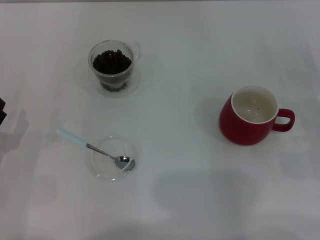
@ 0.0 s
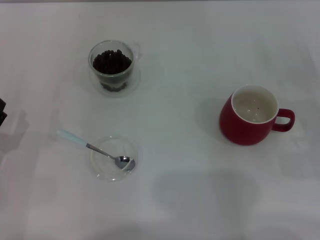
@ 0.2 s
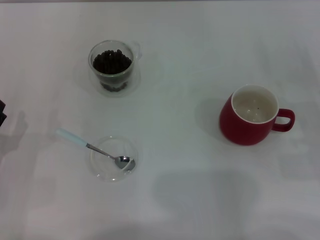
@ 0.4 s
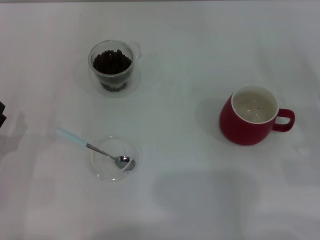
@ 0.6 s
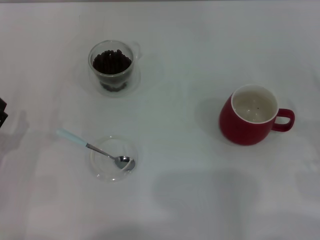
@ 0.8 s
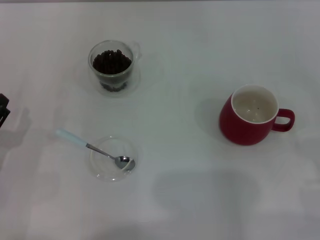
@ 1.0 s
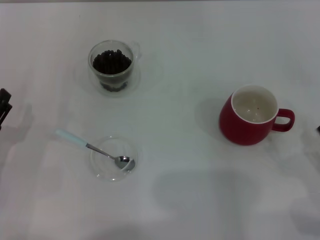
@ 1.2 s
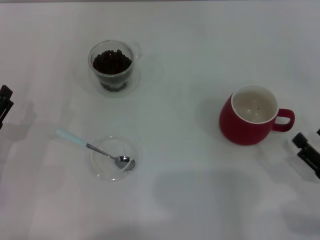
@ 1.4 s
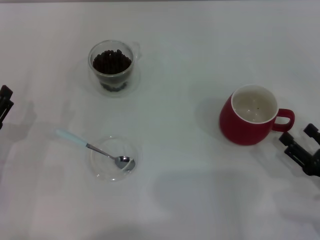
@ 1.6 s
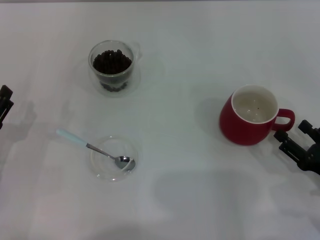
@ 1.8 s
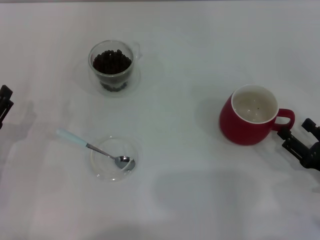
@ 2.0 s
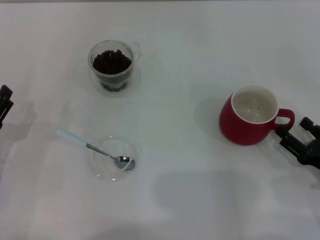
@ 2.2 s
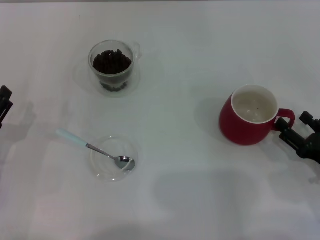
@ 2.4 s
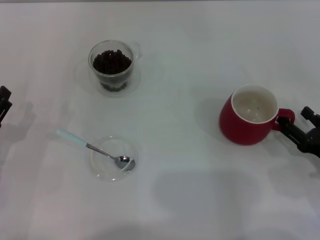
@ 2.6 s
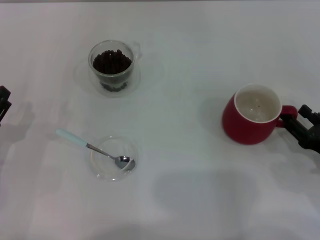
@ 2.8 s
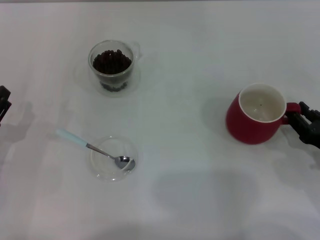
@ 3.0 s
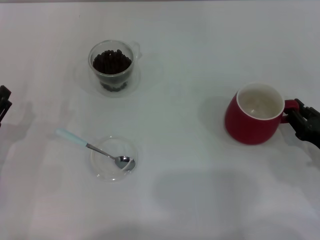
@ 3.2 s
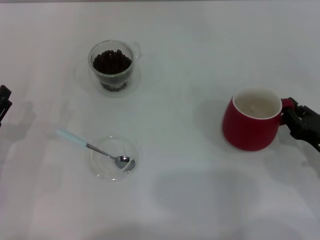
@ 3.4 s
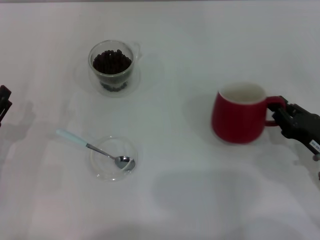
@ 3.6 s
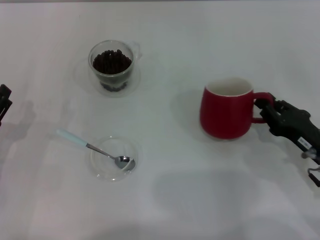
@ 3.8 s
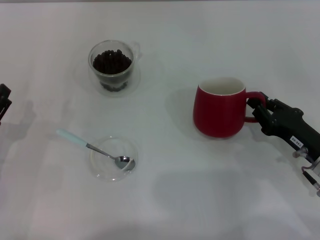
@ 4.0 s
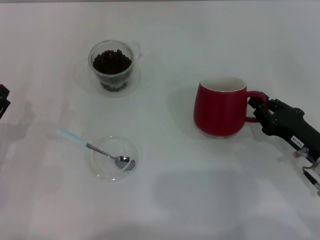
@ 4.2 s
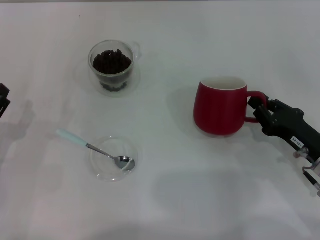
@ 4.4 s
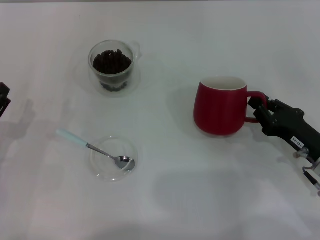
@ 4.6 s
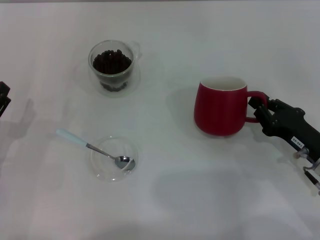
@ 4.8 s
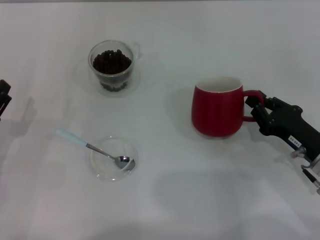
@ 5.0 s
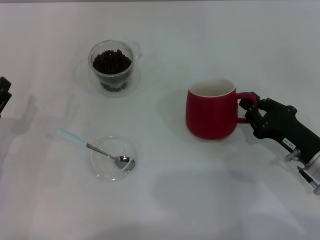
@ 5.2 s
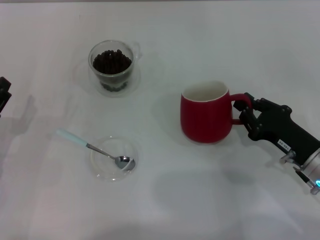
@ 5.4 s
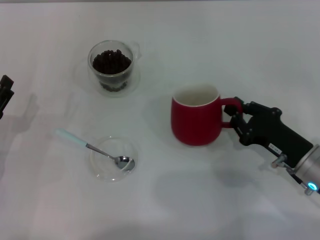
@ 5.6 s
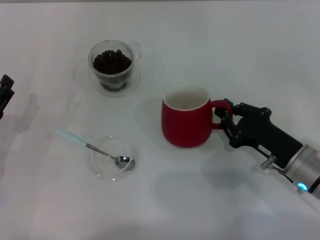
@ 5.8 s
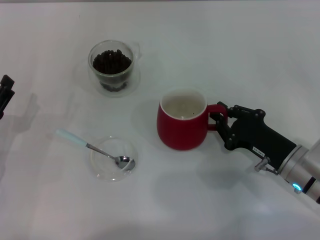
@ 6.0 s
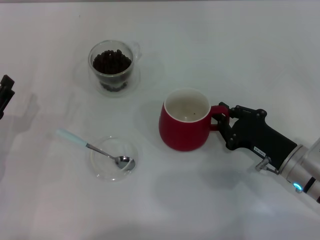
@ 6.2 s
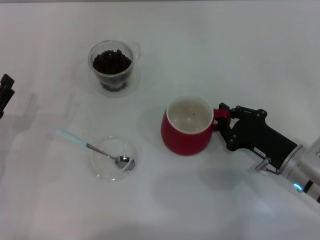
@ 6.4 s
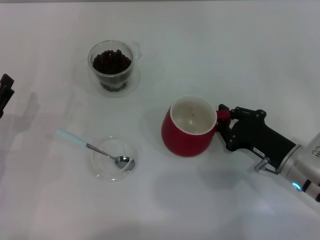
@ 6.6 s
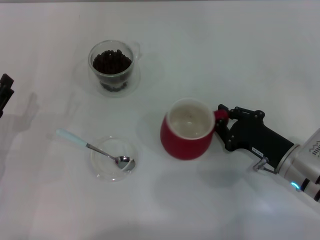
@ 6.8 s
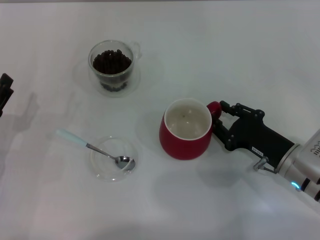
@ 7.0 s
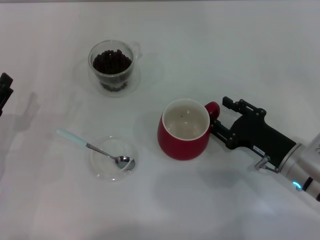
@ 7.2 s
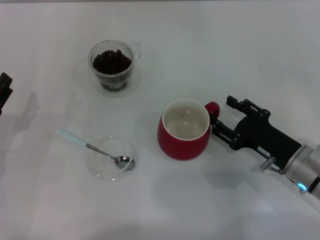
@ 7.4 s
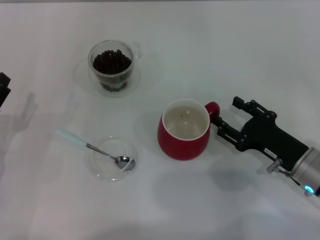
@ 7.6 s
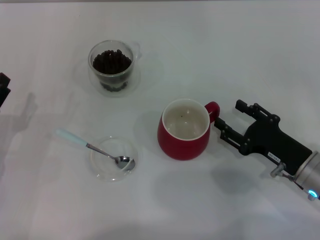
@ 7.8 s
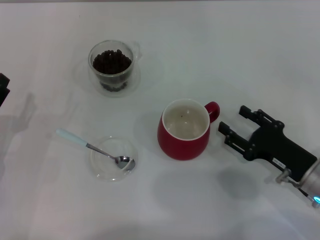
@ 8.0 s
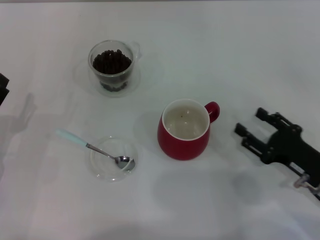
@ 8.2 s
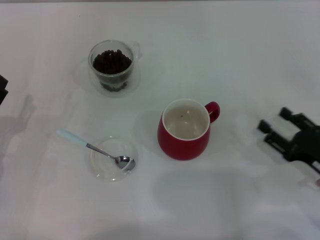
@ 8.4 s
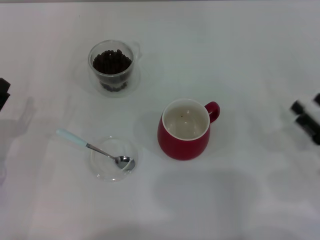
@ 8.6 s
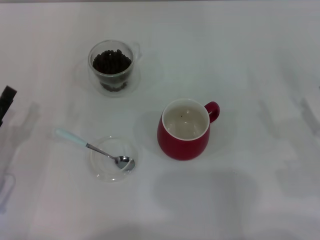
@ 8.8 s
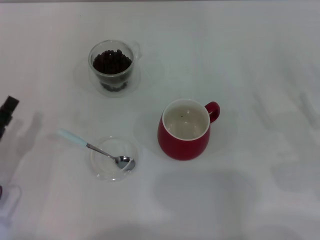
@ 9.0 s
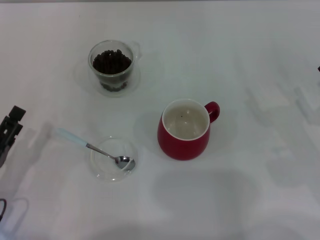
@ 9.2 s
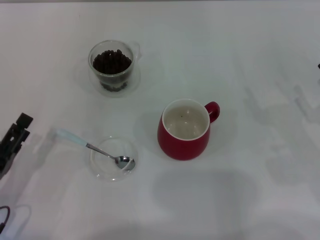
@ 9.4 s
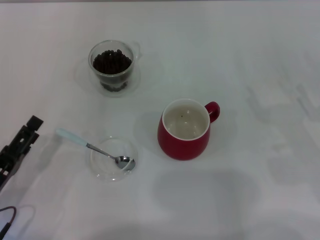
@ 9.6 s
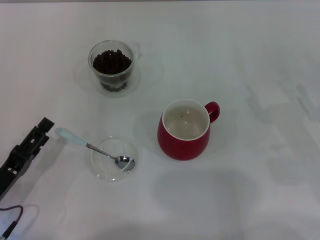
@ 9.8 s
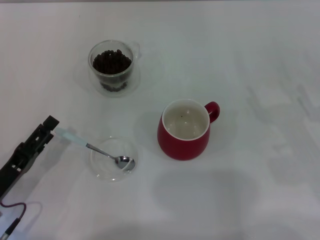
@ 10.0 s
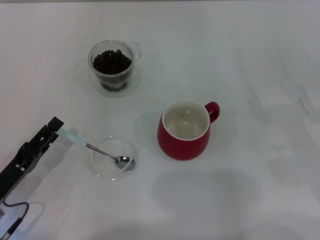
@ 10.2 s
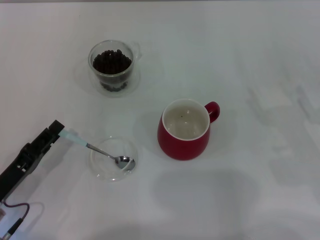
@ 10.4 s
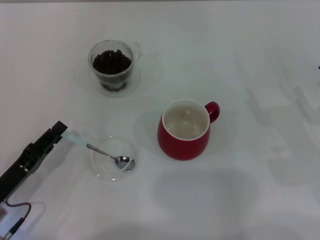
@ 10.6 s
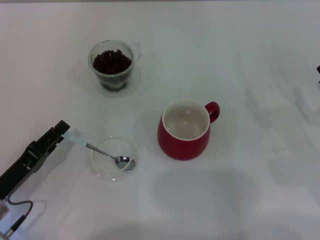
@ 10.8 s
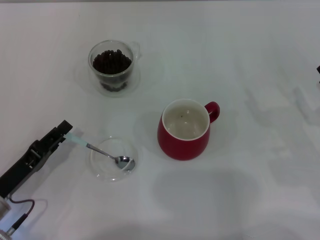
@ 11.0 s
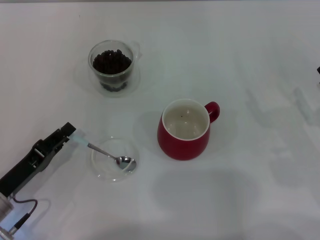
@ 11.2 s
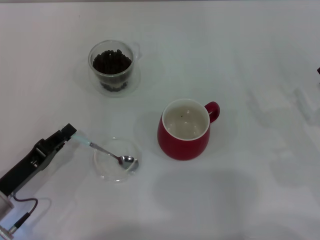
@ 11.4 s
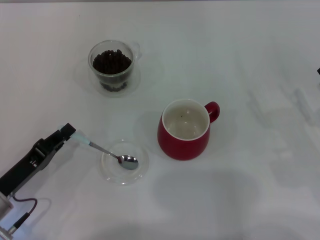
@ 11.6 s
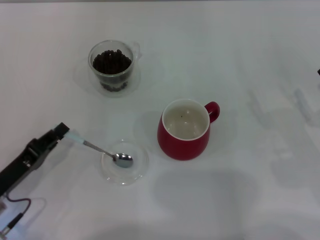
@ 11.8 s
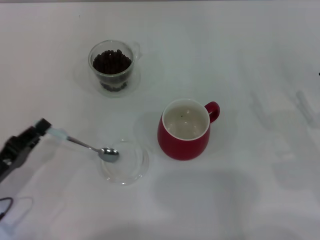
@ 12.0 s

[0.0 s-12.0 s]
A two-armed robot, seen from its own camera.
Task of the whole recording: Use a blue spoon to take out the coffee beans from the glass and pour them into the red cup.
Step, 8.2 to 12.0 s: Pick up the spoon with the right gripper.
0.0 to 1.6 s: The right gripper shifts some 5 cm backward.
1.6 to 3.0 s: The grippers make only small movements.
3.0 to 4.4 s: The right gripper shifts by approximately 5 cm, and closes its fingers.
6.0 to 7.6 s: The right gripper opens.
7.6 to 9.0 s: The right gripper goes some 10 cm to the right.
9.0 to 10.4 s: The grippers make only small movements.
10.4 to 12.0 s: The left gripper closes.

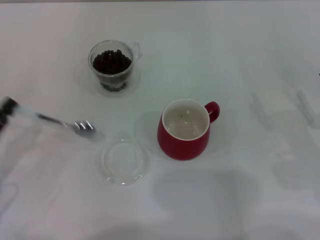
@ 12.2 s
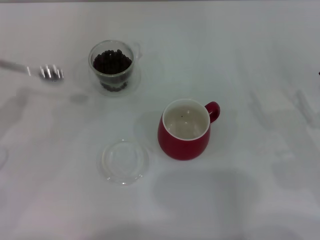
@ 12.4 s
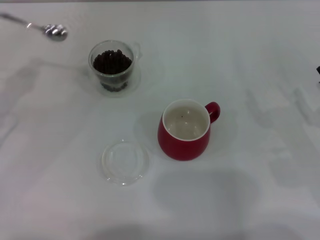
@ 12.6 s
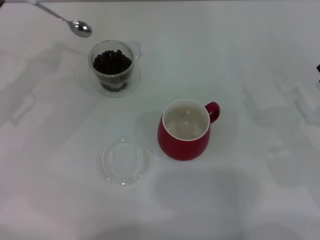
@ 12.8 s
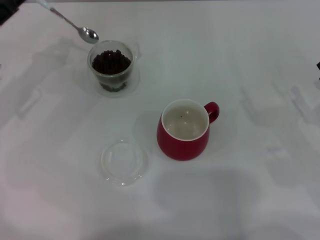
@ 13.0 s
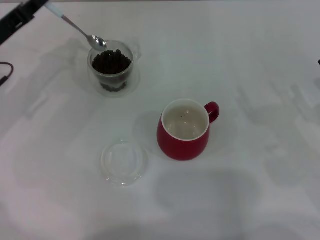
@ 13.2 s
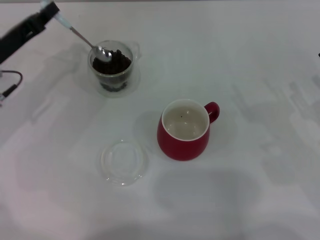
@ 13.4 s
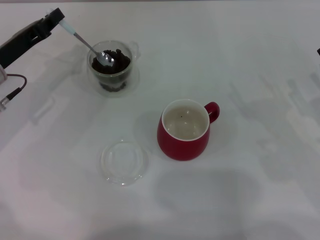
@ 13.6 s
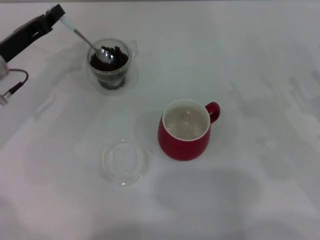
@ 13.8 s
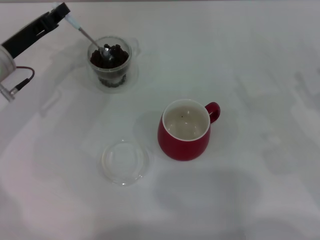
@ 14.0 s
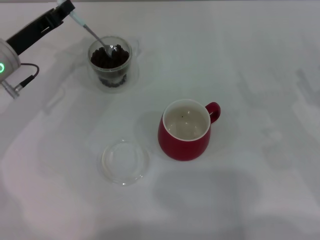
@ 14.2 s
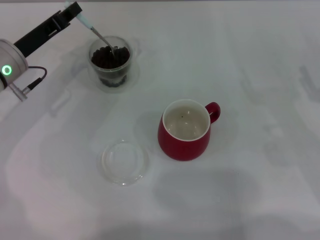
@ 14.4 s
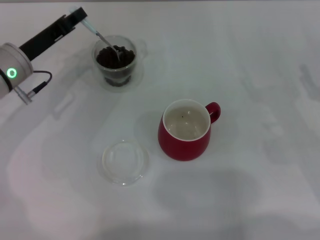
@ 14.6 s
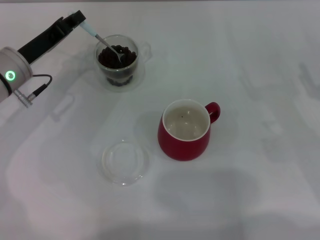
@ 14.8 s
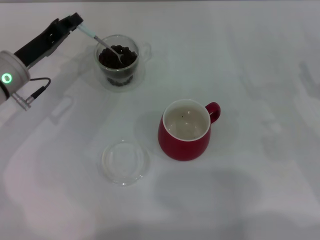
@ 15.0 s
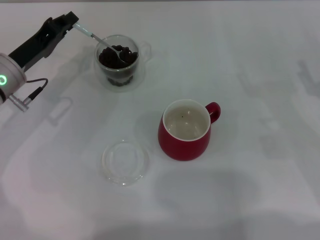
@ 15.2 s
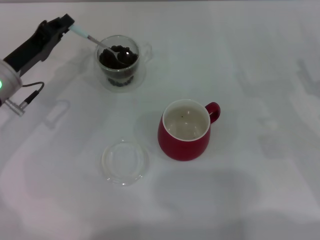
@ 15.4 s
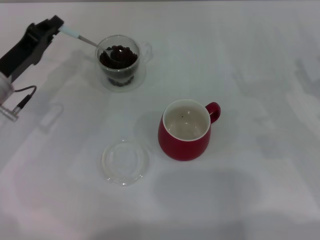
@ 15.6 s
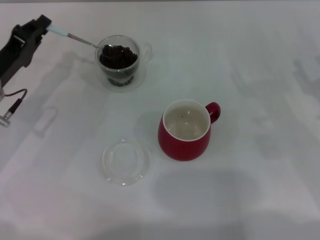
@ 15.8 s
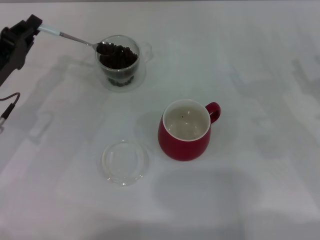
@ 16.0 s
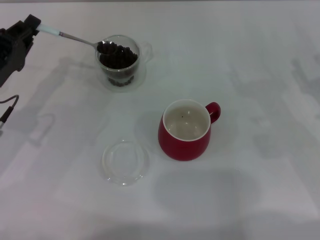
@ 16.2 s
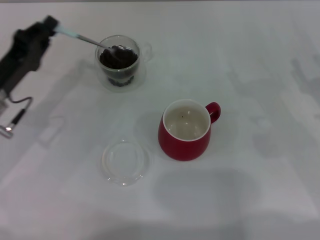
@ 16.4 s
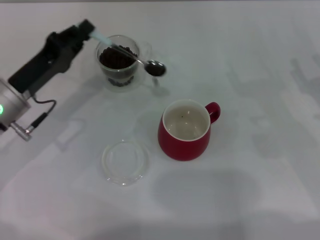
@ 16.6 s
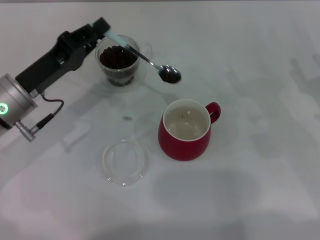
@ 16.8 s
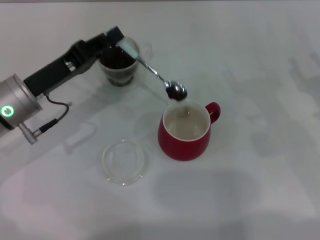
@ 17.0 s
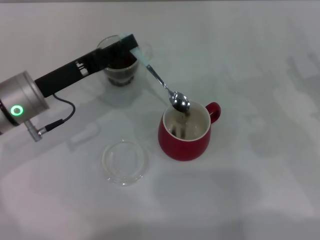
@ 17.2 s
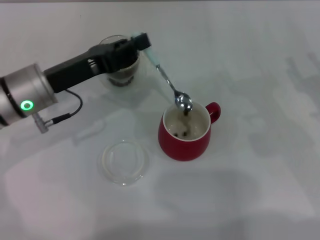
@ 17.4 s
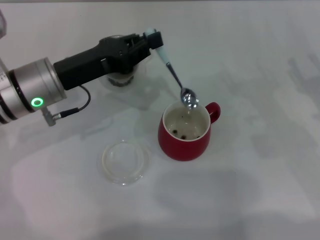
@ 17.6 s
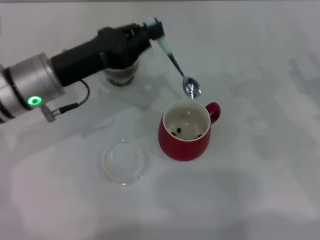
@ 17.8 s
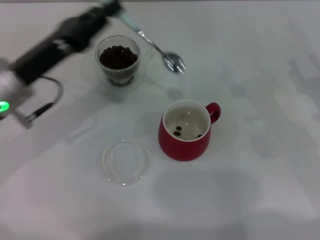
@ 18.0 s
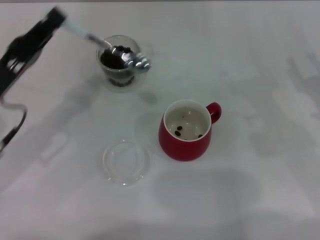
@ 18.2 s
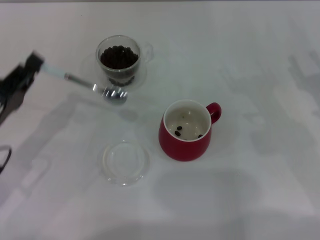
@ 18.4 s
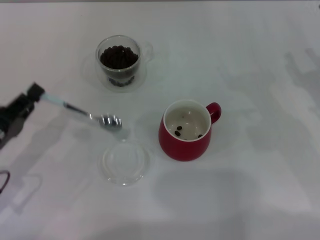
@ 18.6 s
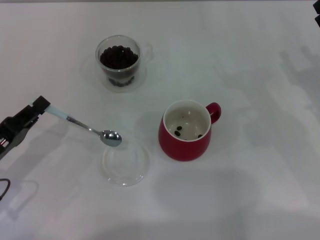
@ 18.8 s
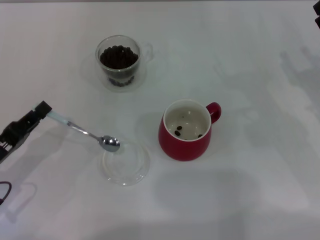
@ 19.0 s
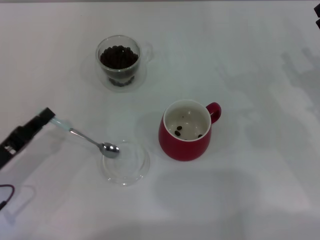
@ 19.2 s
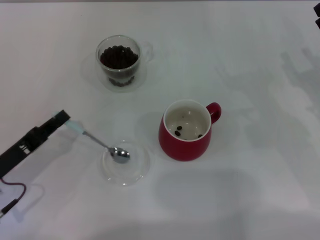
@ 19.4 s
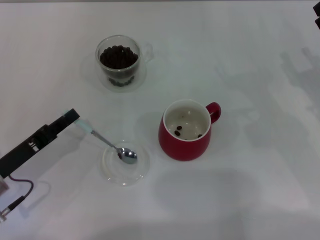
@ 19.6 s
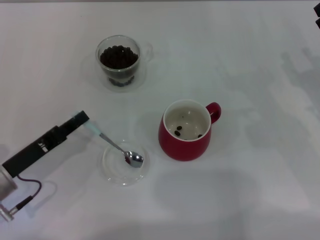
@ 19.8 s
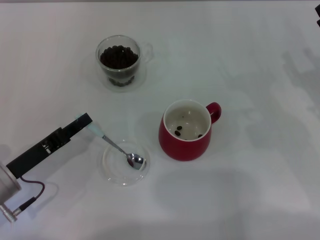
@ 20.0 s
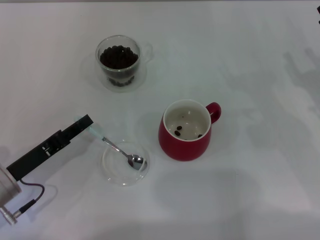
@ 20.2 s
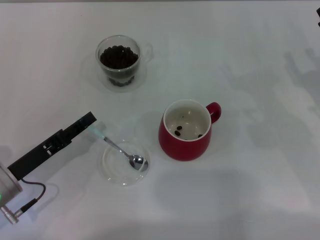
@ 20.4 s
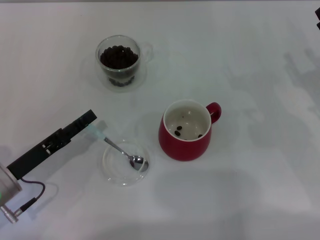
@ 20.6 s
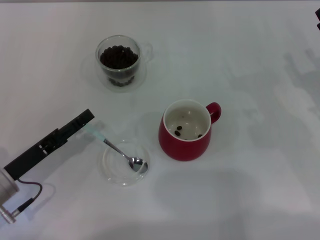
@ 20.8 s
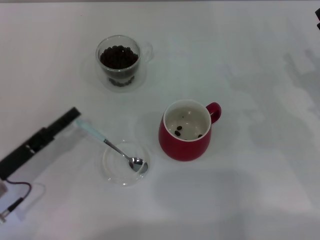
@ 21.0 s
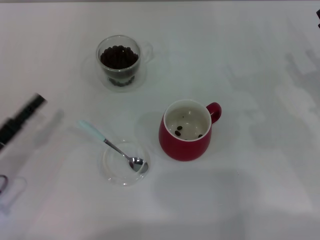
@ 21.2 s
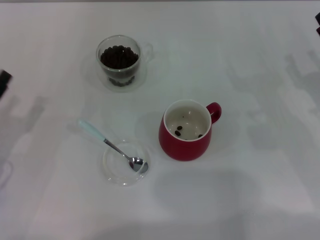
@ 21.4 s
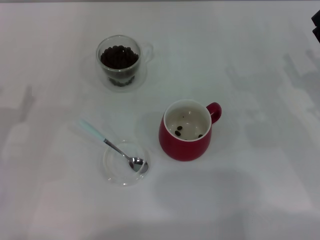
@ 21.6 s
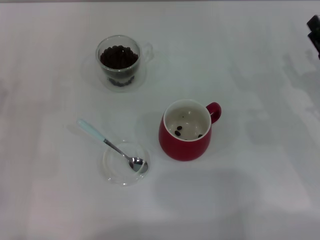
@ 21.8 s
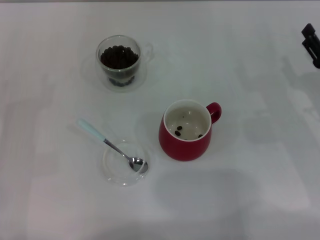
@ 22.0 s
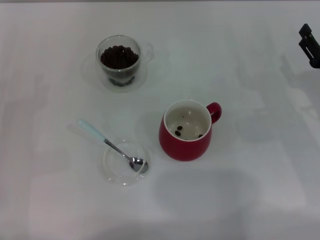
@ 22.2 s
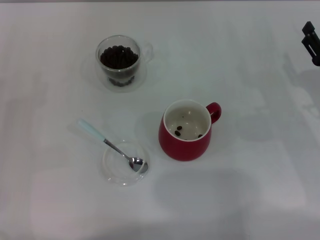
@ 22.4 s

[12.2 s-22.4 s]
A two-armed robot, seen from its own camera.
Task of the whole recording: Use a blue spoon to take out the coffee beans from the glass and pour them into the red cup.
Step, 12.2 to 17.6 s: Scoop a spoonful of beans into the cup with the right gripper.
12.2 to 13.6 s: The left gripper is displaced forward by about 15 cm.
13.6 to 15.2 s: The grippers move only a little.
15.2 to 16.6 s: The left gripper ends up about 5 cm from where it was.
18.0 to 19.4 s: The left gripper travels downward, backward and to the left by approximately 15 cm.
19.4 to 21.0 s: The left gripper opens its fingers.
21.0 to 22.4 s: The left gripper heads to the left, covering roughly 5 cm.
